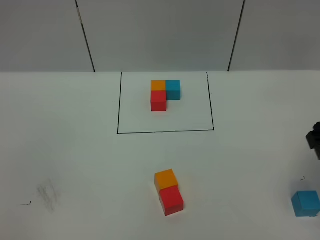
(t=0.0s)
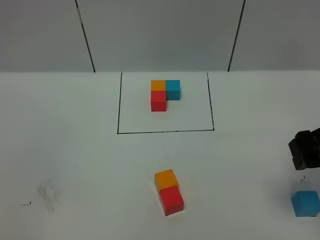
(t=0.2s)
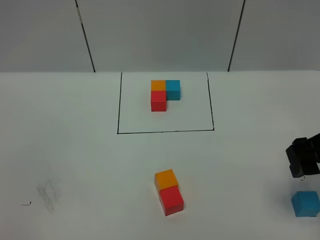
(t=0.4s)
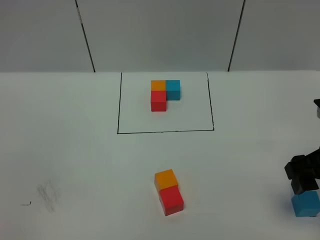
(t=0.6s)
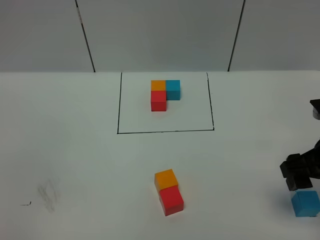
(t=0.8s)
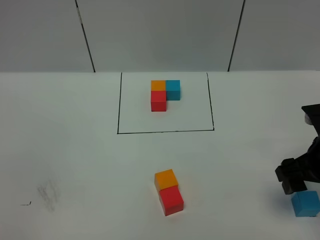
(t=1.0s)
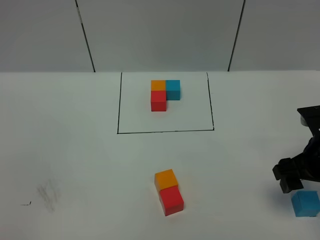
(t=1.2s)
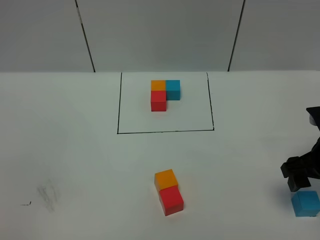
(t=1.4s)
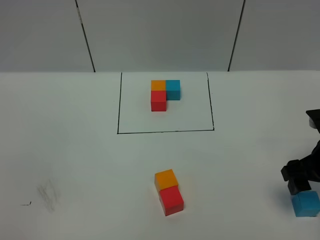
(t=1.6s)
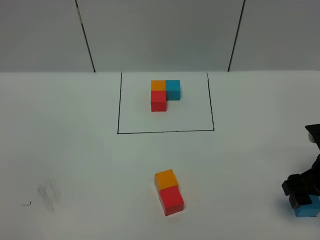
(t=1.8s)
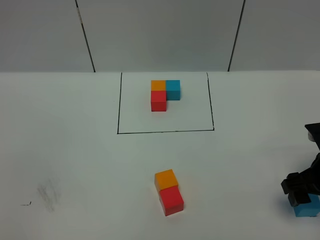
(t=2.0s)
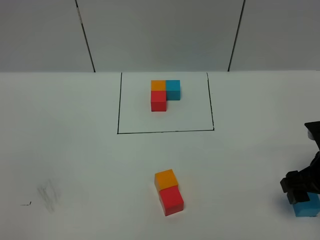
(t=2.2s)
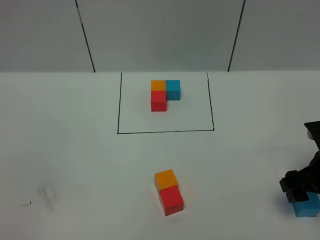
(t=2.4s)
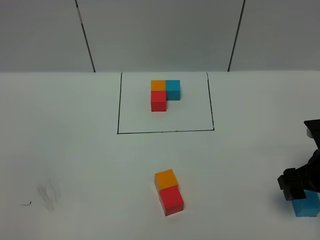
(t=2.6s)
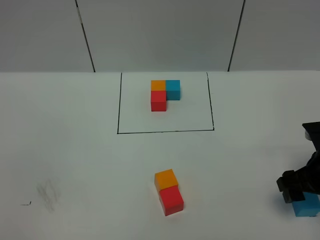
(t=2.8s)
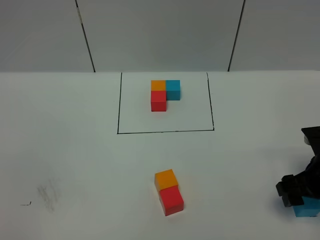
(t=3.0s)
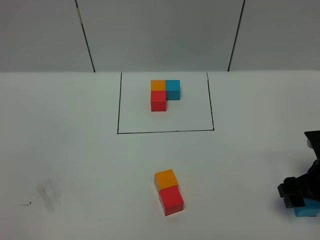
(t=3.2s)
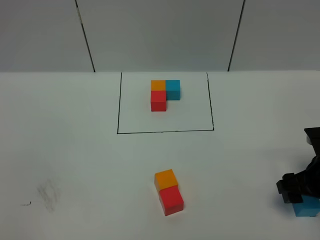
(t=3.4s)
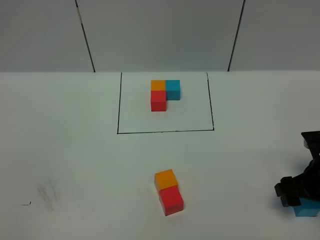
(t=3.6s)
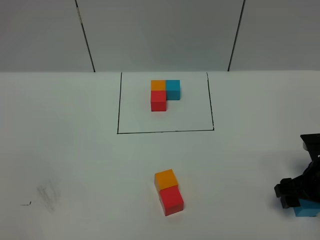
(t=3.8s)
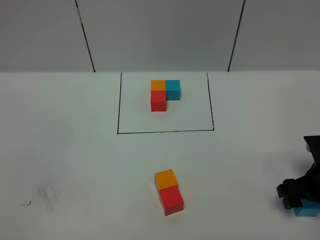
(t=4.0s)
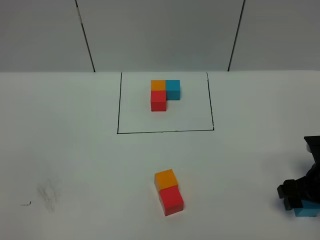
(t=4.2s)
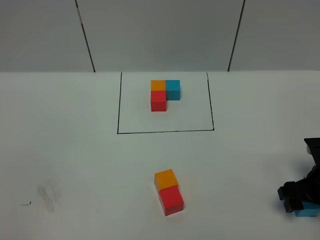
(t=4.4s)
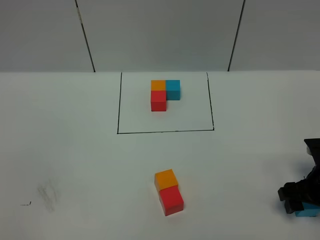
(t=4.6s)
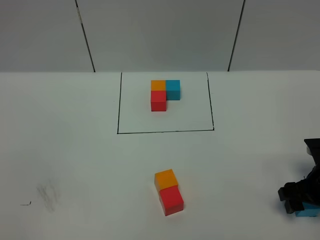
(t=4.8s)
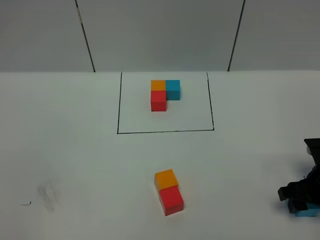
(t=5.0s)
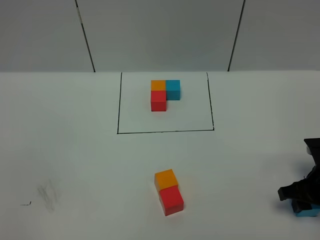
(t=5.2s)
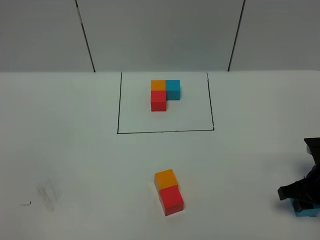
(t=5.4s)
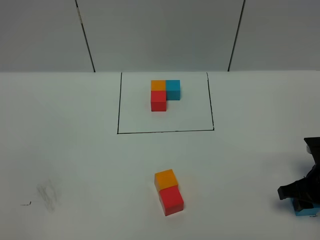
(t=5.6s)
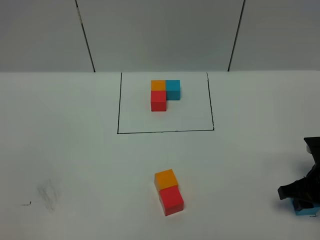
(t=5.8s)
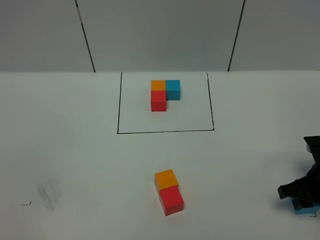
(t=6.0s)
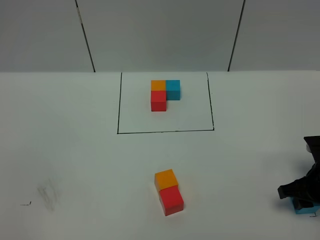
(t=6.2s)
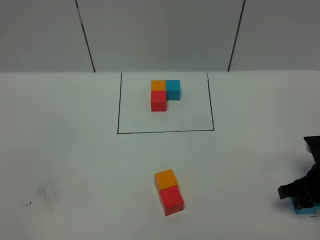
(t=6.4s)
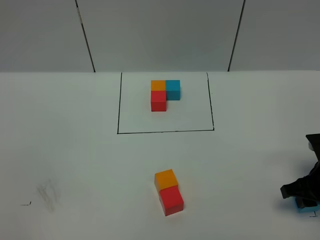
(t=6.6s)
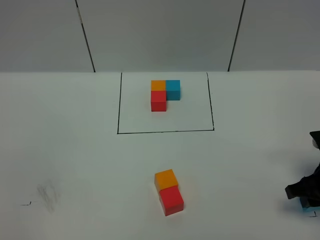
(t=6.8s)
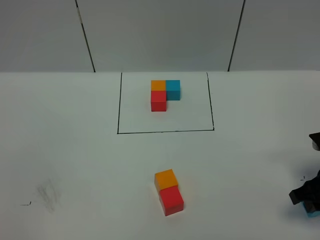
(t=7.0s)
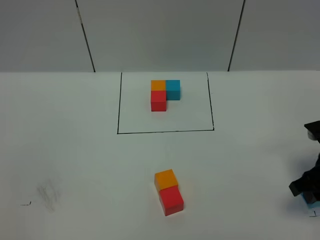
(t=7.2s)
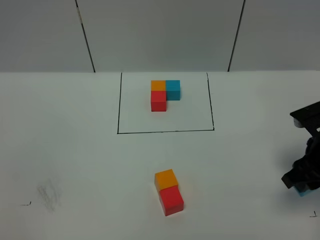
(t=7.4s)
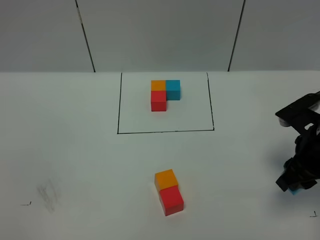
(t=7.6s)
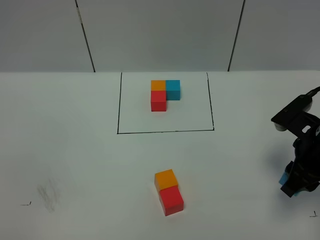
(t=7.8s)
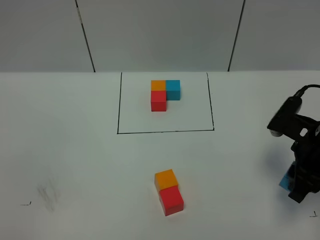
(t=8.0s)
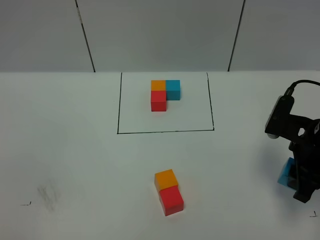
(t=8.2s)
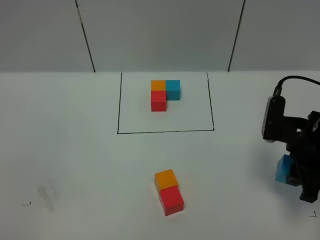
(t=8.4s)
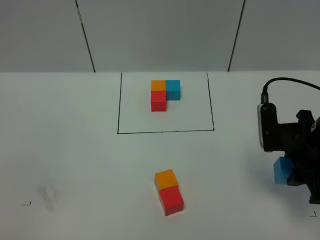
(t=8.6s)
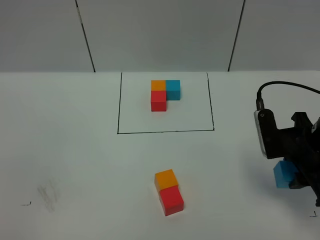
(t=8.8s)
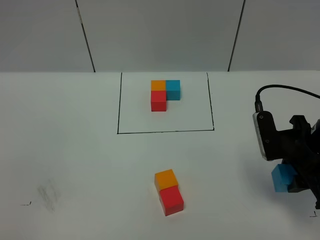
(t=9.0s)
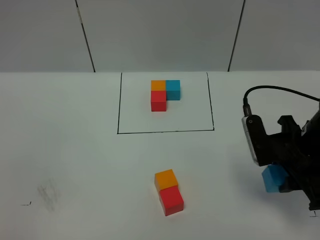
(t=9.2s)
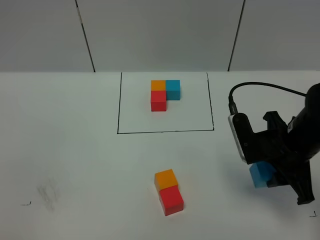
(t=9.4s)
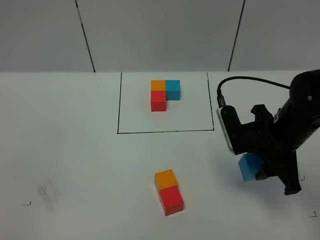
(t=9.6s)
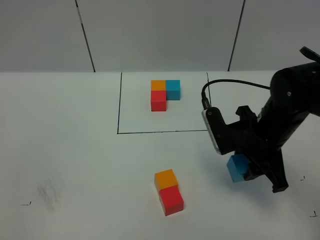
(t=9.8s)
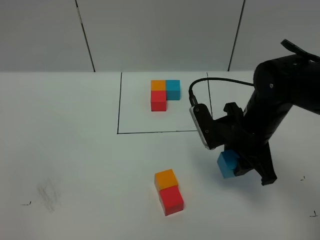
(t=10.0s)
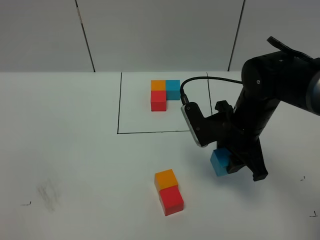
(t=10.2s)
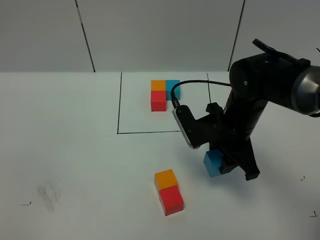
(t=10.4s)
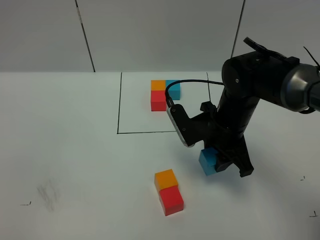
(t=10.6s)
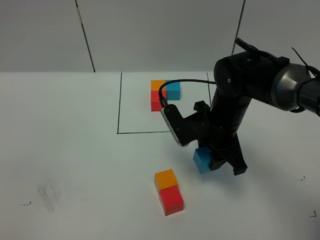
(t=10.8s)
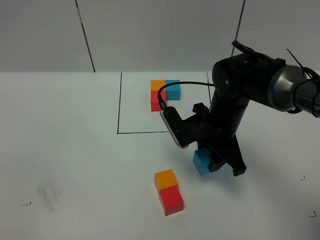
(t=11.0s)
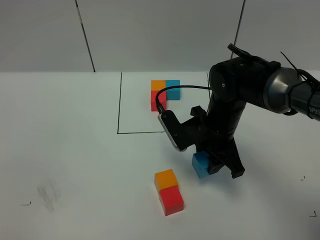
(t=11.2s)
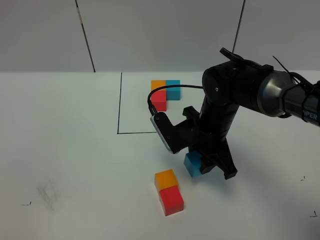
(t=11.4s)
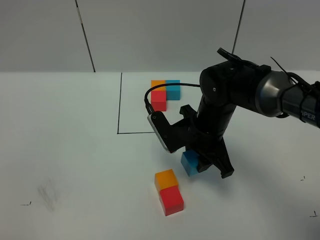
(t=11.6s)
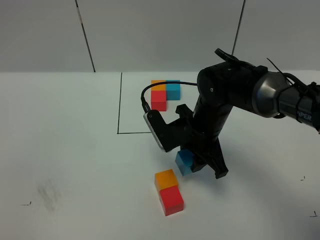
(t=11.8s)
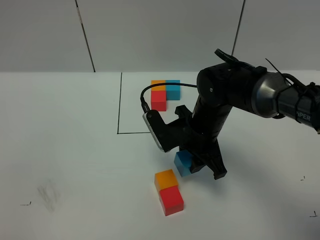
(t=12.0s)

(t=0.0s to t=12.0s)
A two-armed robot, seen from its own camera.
Task of the whole recording: According to the building block template in front, assemble the scattered blocks together.
t=0.0s - t=1.6s: The right gripper heads downward, covering roughly 10 cm.
t=1.6s - t=3.0s: The grippers stay close to where they were, moving slightly.
t=3.0s - t=4.4s: The grippers stay close to where they were, moving slightly.
t=6.0s - t=7.6s: The right gripper goes some 10 cm upward.
t=9.0s - t=10.4s: The right gripper travels to the left and forward by some 15 cm.
t=10.4s - t=12.0s: The right gripper travels to the left by about 5 cm.

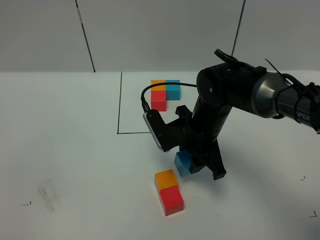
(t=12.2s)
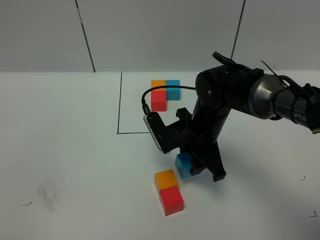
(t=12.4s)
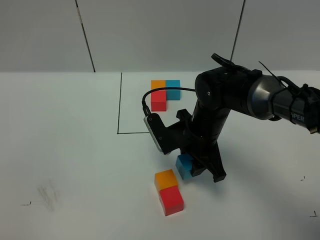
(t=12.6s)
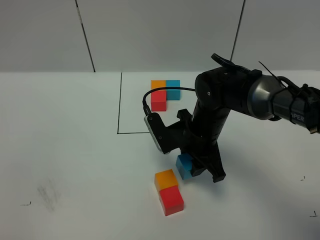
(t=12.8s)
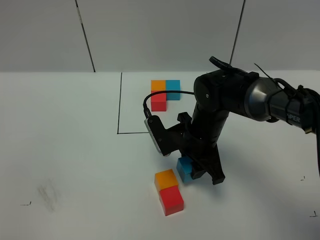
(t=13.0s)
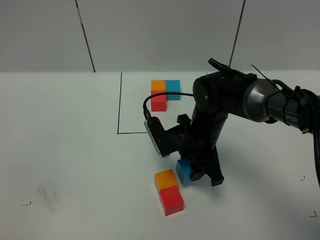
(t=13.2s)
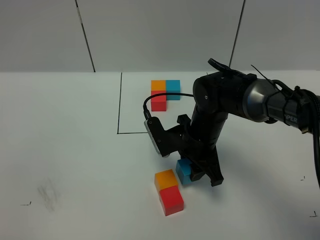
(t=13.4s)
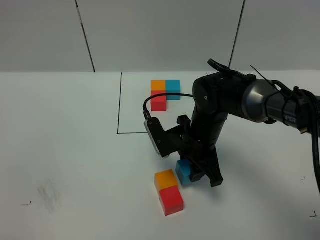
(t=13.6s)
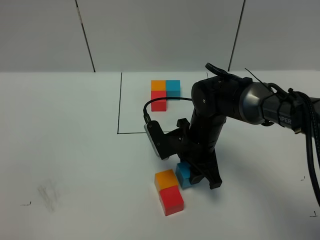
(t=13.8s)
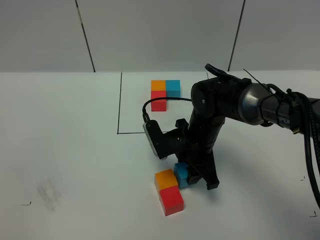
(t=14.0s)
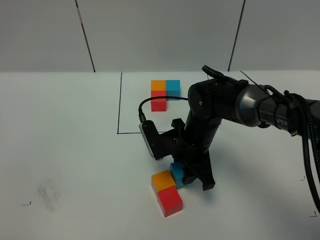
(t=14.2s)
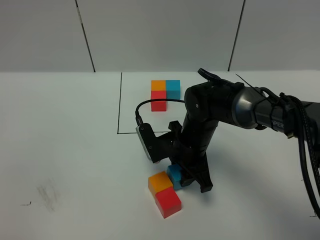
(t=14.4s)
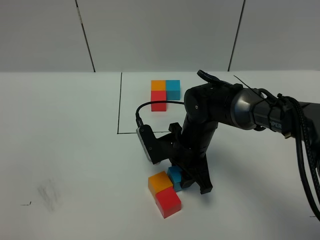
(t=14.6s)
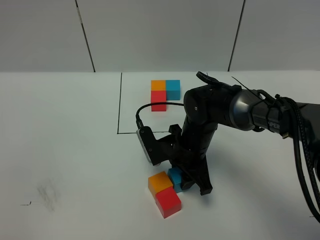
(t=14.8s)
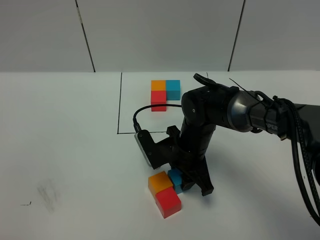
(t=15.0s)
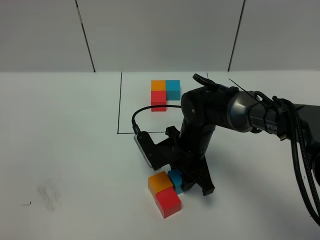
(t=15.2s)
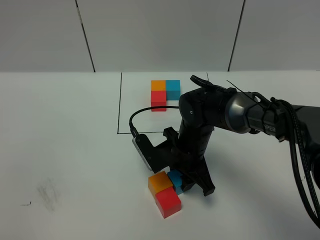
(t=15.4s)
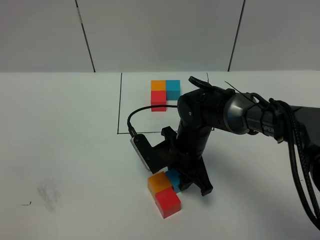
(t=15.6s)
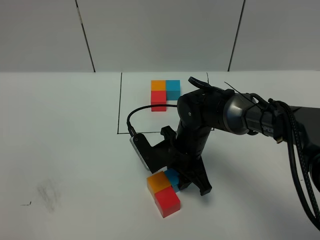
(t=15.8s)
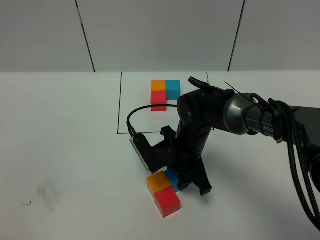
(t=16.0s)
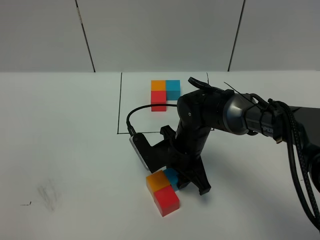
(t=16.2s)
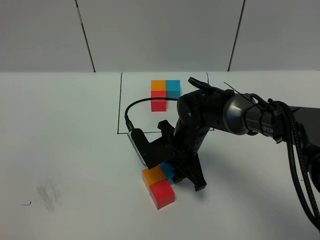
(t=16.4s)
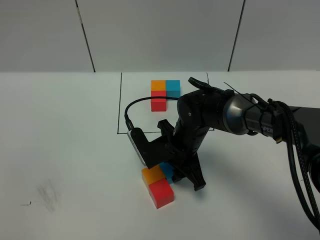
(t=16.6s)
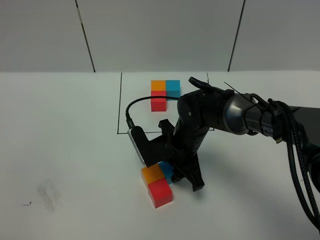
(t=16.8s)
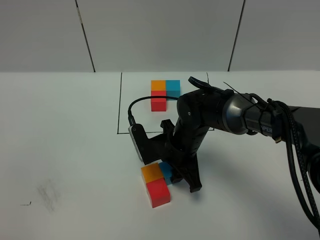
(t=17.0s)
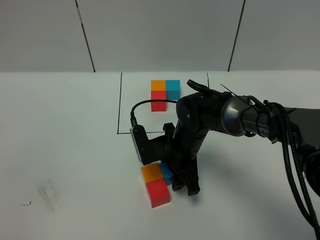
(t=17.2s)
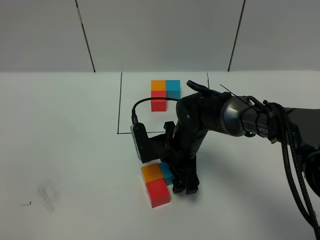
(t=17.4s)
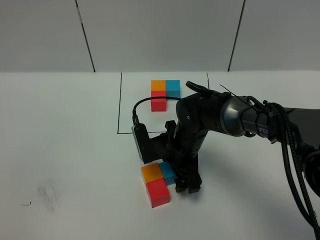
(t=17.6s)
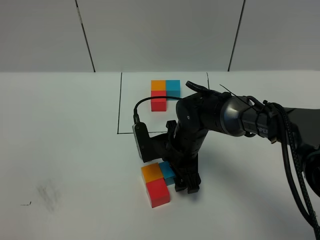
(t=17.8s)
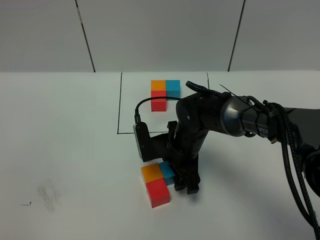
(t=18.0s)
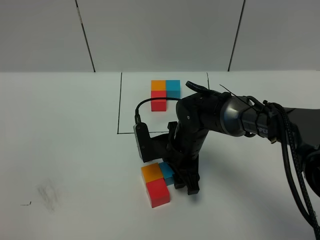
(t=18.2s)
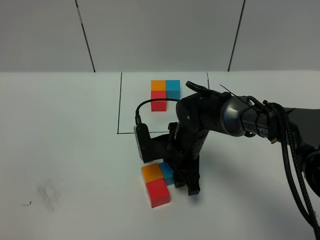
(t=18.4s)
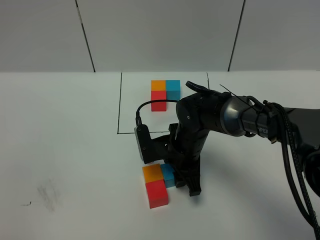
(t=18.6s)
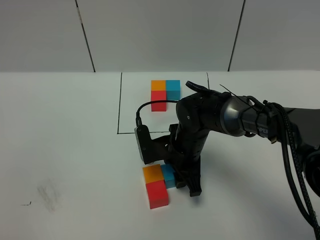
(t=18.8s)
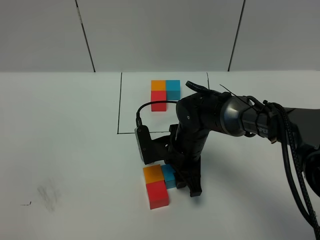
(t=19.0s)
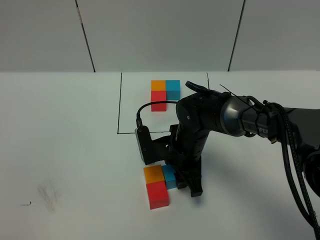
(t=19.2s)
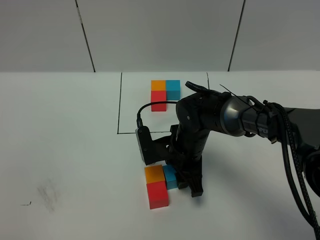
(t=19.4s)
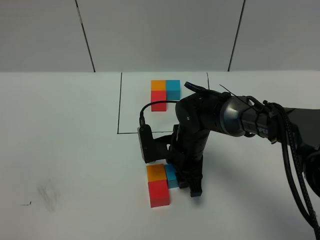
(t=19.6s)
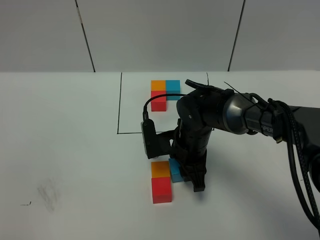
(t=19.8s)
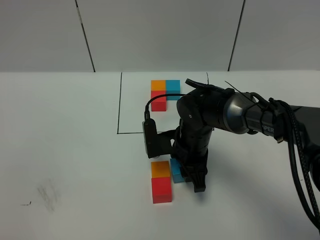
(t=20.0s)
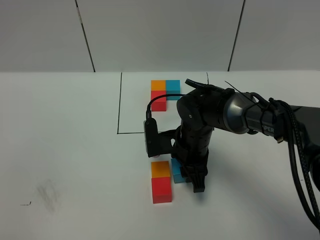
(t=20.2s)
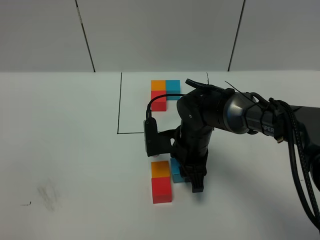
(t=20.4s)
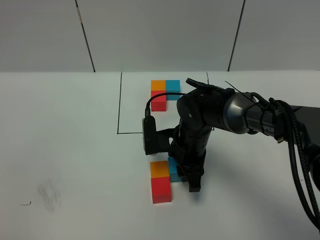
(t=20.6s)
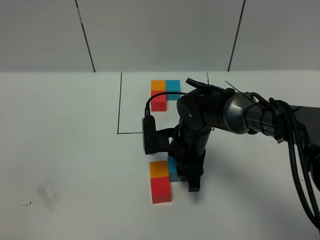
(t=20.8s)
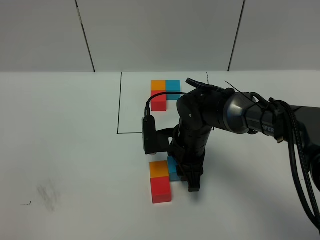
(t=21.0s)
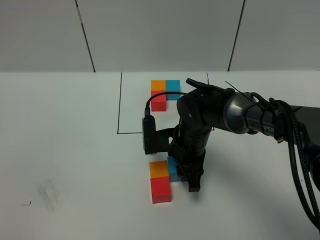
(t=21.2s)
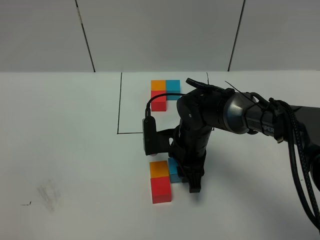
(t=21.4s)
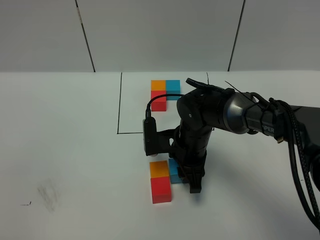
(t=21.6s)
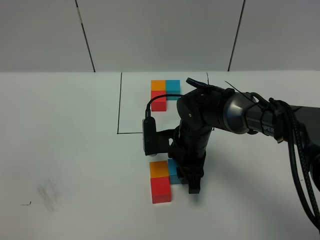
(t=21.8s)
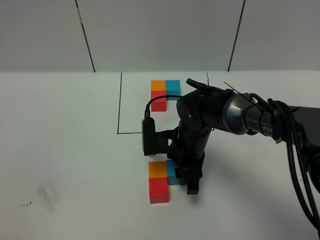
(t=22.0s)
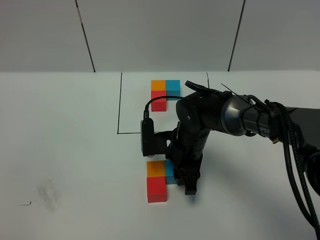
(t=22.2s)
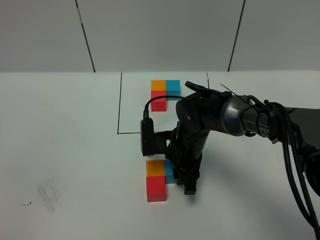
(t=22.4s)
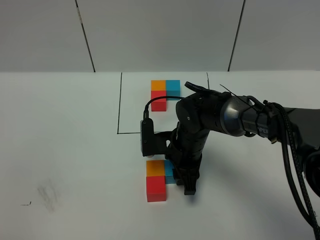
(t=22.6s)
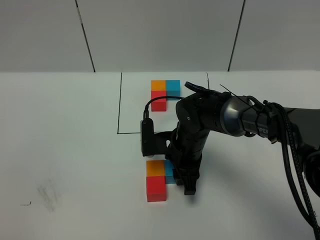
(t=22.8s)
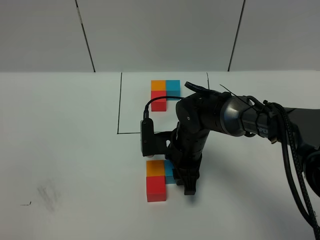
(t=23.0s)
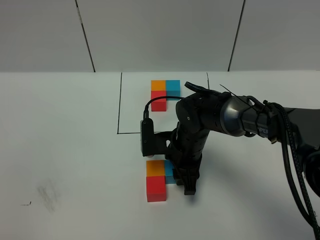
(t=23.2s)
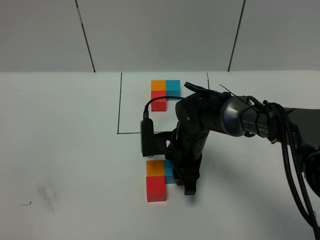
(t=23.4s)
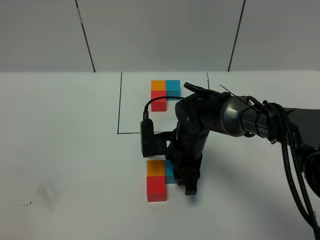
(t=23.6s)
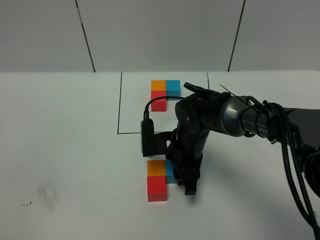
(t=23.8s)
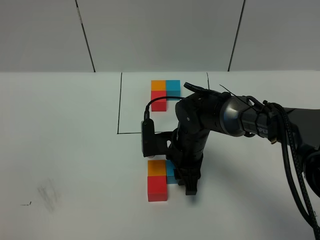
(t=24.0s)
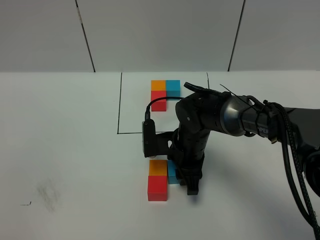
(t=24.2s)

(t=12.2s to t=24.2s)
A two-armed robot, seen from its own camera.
Task of the whole recording: According to the building block template in front, assemble the scattered blocks together.
t=12.2s - t=16.6s: The grippers move only a little.
t=16.6s - t=18.2s: The right gripper opens its fingers.
t=18.2s - t=19.8s: The right gripper closes its fingers.
t=19.8s - t=21.2s: The grippers stay close to where they were, moving slightly.
t=21.2s - t=24.2s: The two grippers keep their place.
